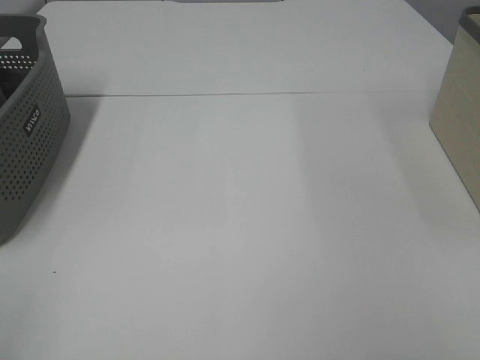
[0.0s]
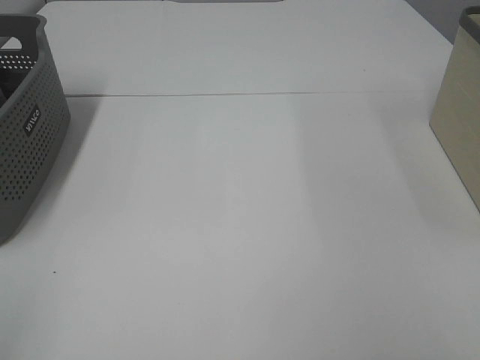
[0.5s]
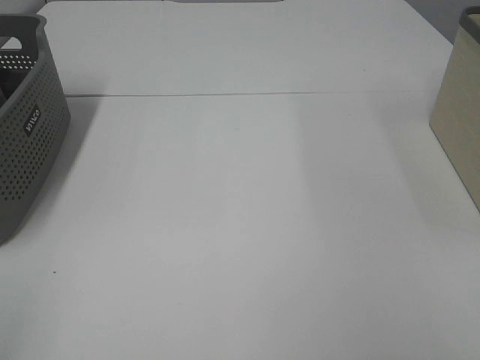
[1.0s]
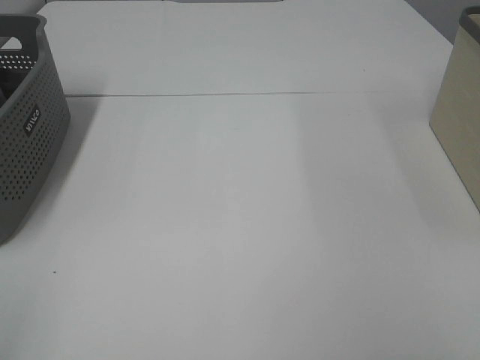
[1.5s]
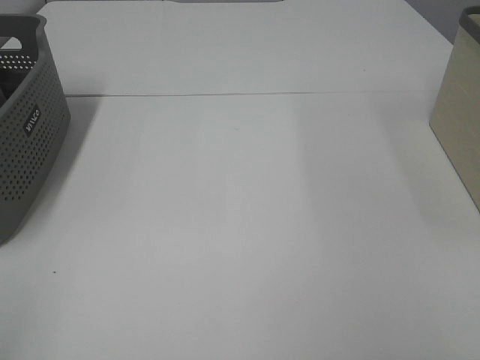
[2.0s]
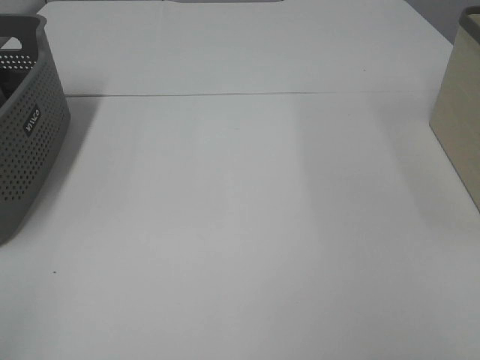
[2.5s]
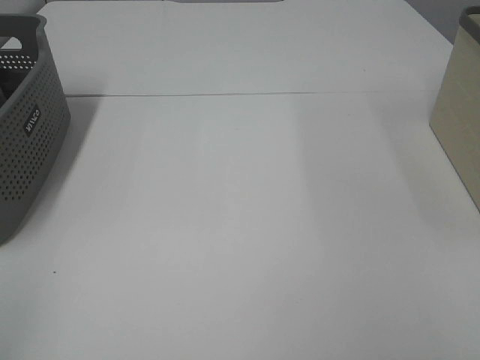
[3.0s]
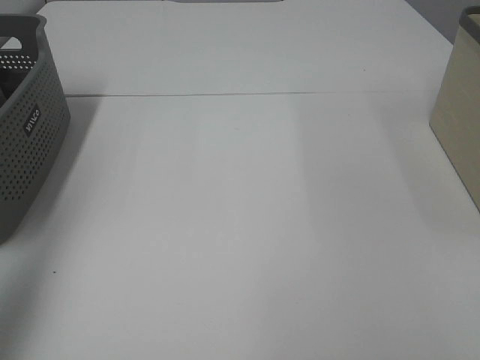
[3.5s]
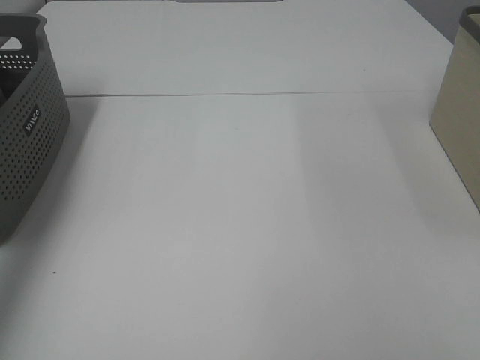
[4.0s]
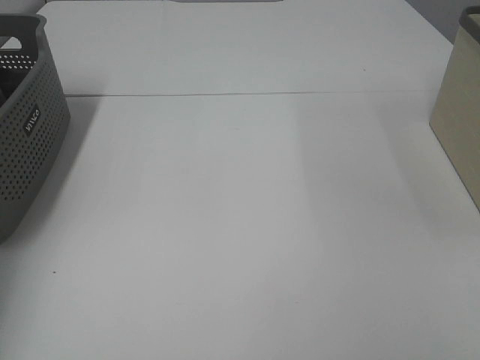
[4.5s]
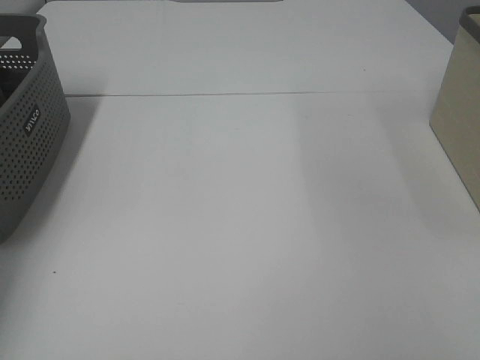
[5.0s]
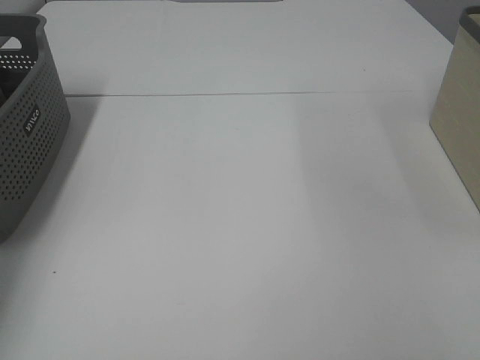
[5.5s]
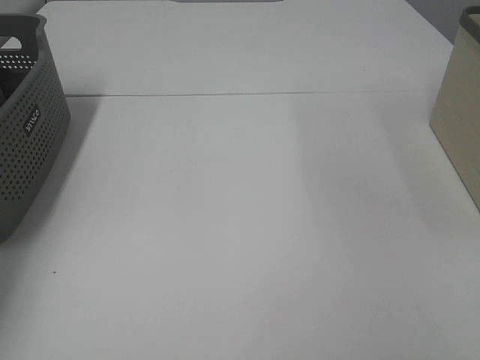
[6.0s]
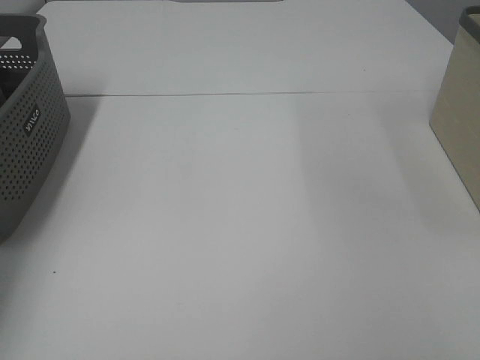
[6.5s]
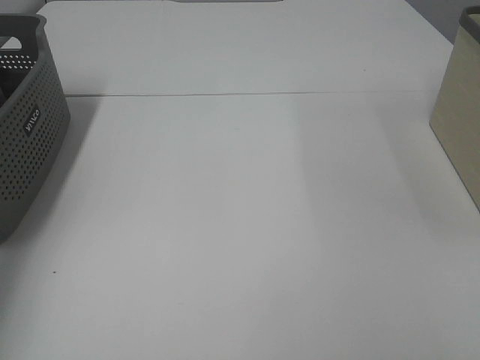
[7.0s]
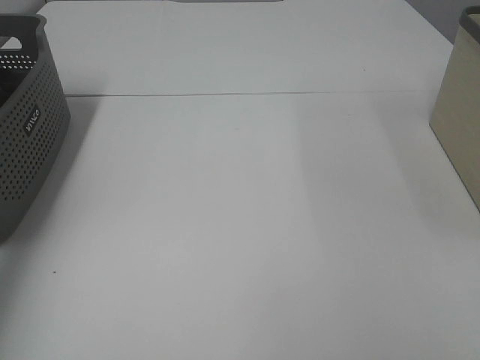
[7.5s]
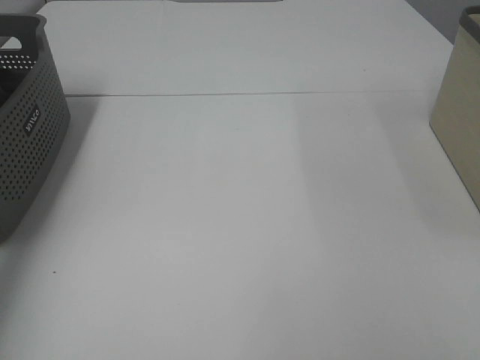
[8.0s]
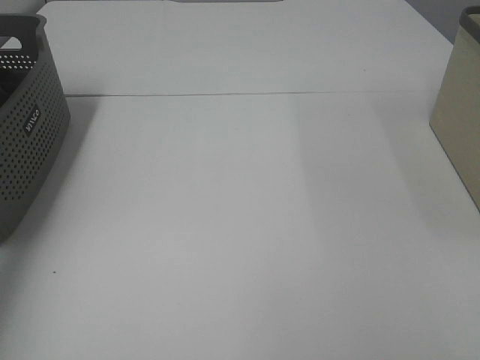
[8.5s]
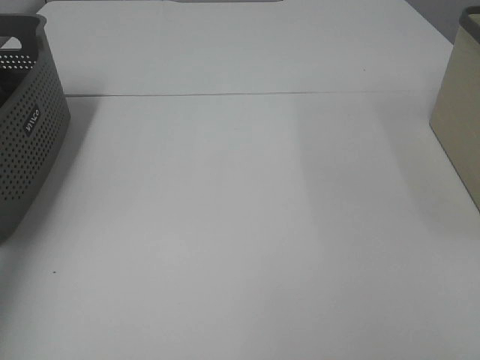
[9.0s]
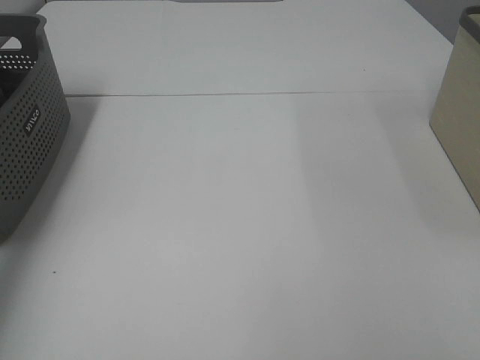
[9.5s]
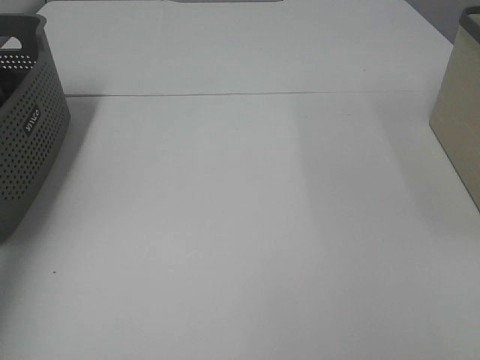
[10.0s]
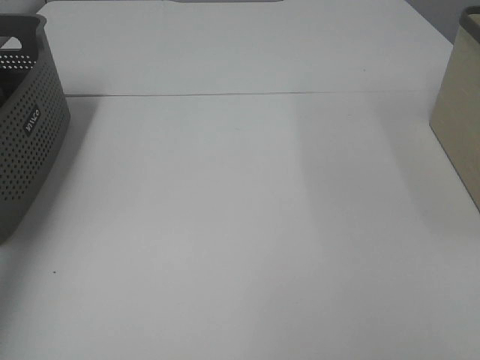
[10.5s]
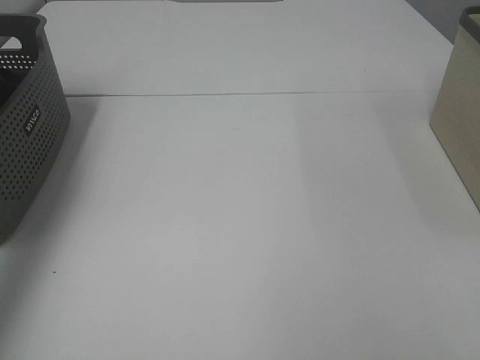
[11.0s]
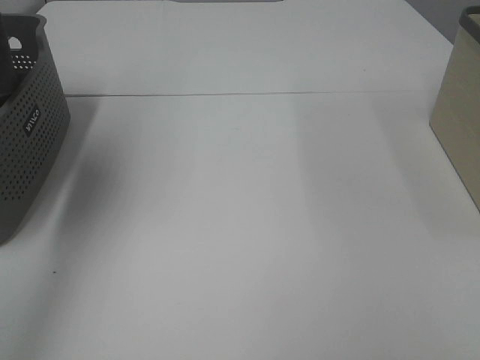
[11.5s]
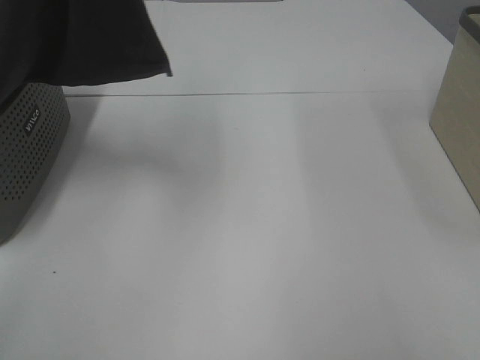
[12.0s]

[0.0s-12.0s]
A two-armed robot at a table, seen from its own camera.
Task of the whole recording: Remove the towel and place it.
0.0s to 2.0s: Both grippers stay about where they are.
2.0s to 4.0s: The left gripper is displaced forward by some 35 cm.
4.0s to 6.0s: The left gripper is displaced downward and forward by approximately 20 cm, and closes its fingers.
8.0s to 10.0s: The two grippers keep their place.
10.0s to 12.0s: The left gripper is displaced to the right and upward by roughly 30 cm.

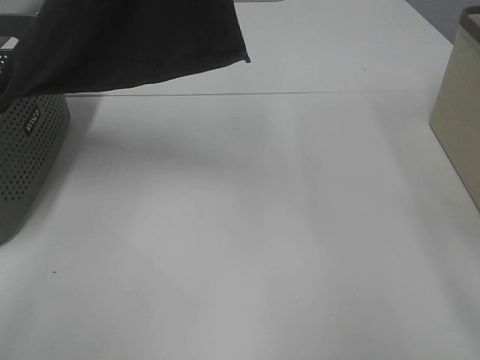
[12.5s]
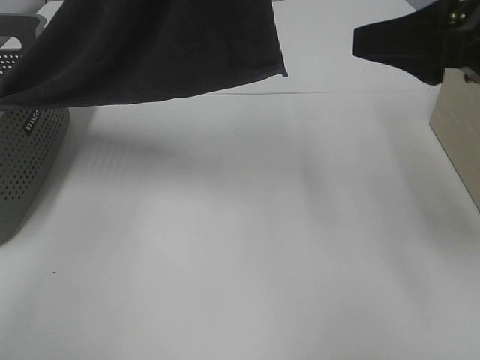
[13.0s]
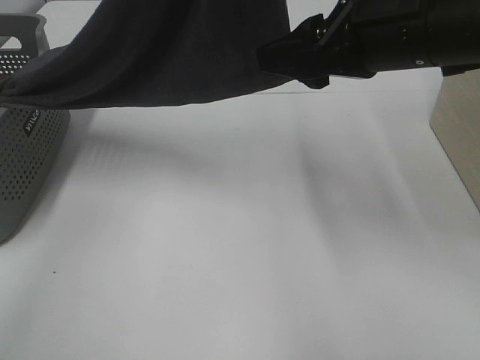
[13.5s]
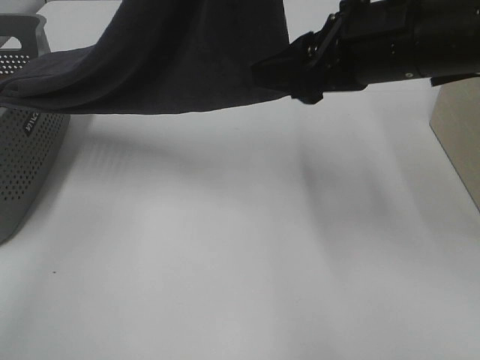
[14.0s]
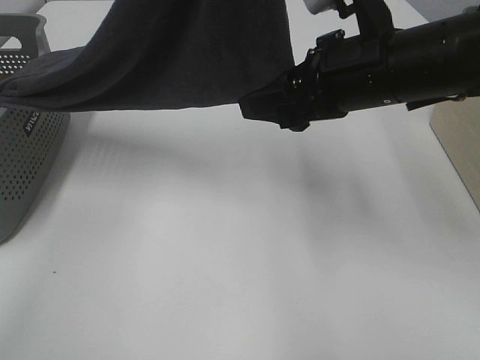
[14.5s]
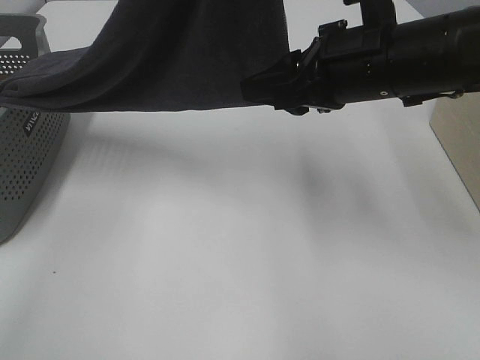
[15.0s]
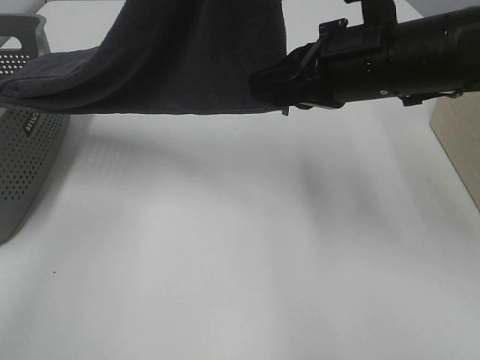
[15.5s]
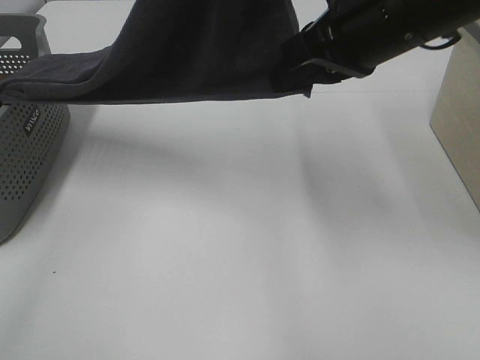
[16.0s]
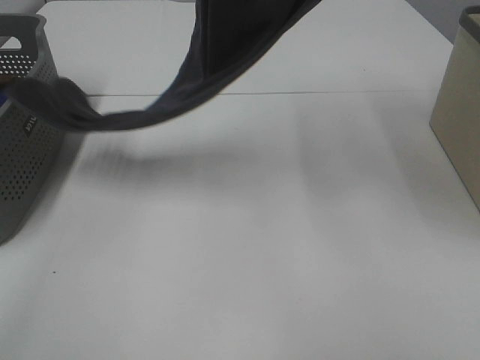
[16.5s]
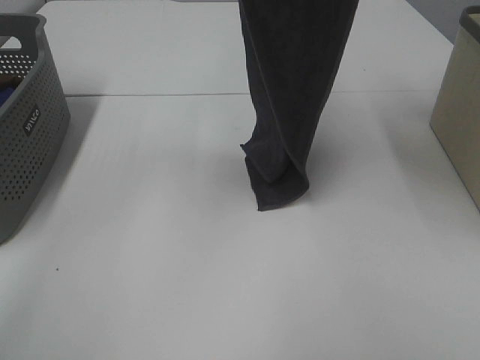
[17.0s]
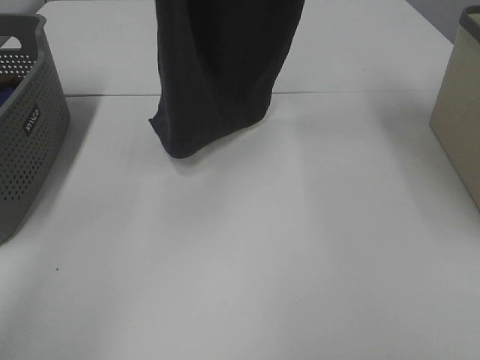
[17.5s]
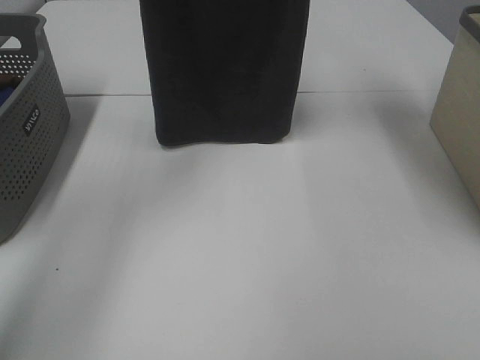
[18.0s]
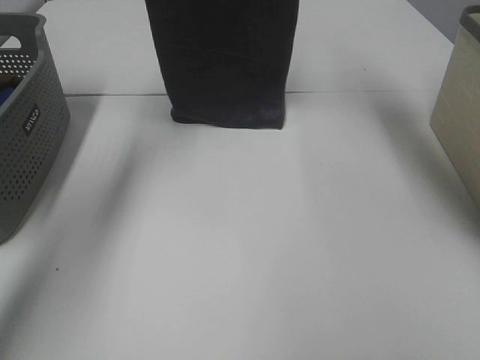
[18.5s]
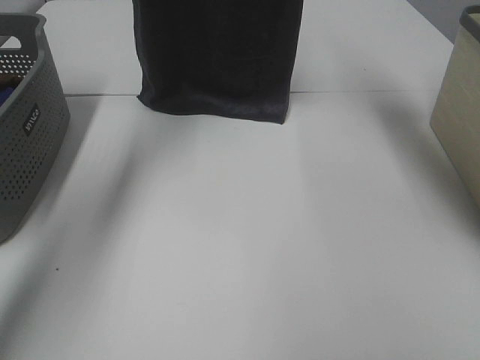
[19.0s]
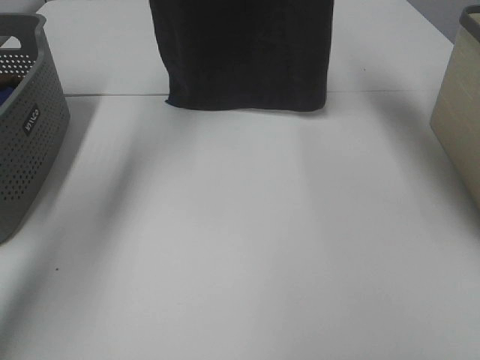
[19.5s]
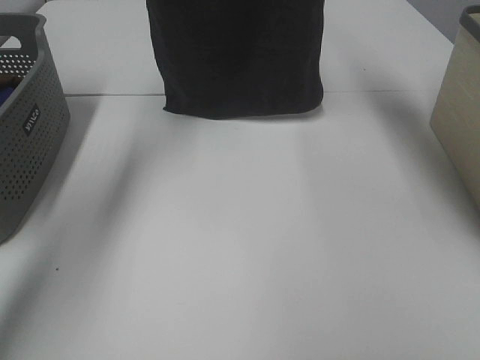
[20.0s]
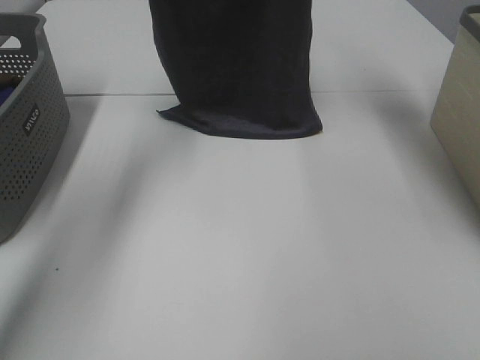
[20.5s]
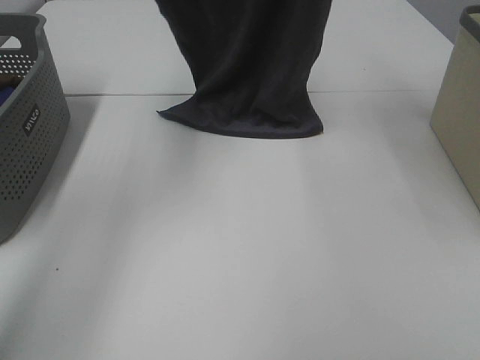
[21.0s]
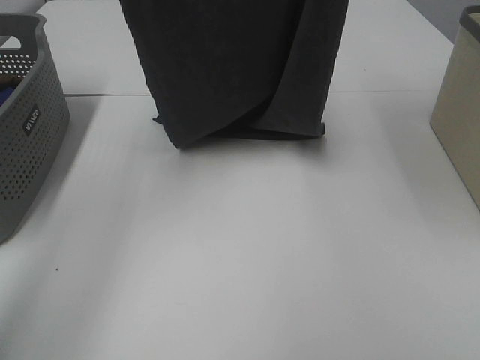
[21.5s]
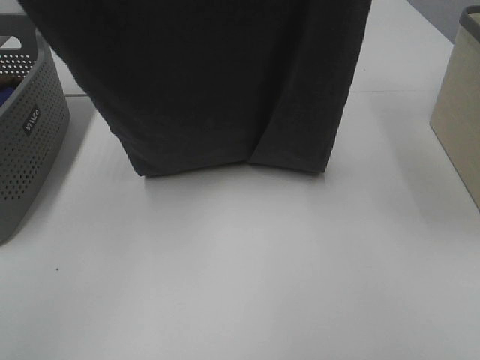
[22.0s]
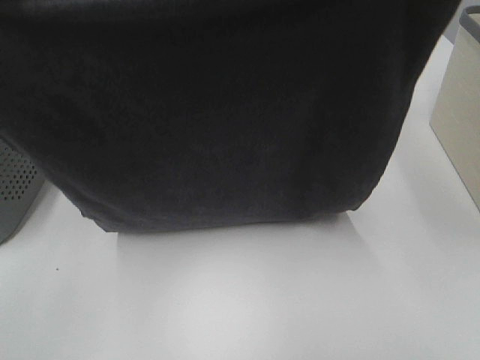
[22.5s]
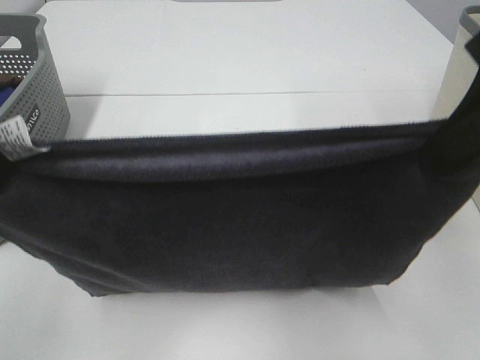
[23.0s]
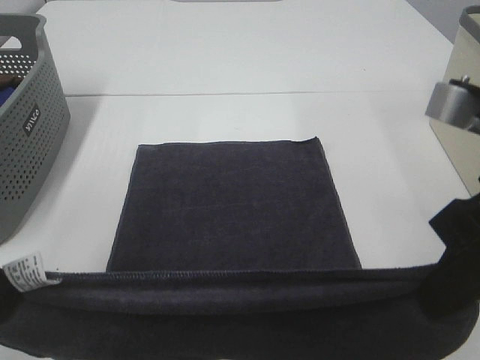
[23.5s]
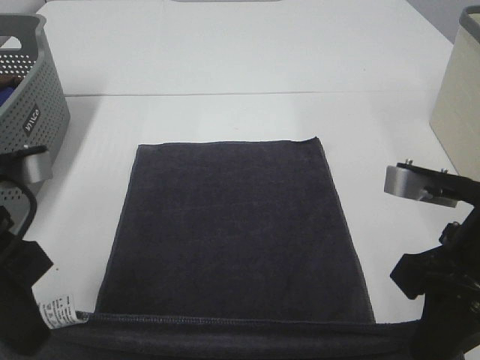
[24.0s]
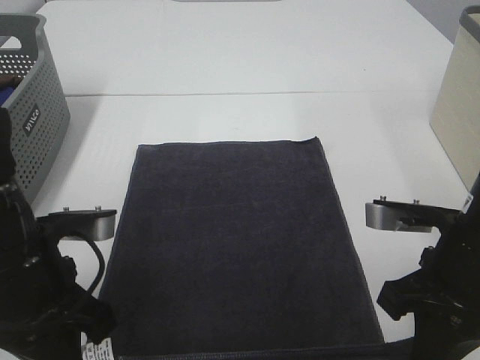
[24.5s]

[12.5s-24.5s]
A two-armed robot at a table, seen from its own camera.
Task of the whole recording: Remove the towel and place it.
Step, 12.5s to 14.5s: Right hand: grab a corner of the grey towel and straighten it.
Step, 15.0s to 20.5s: Left hand: spread the grey towel flat on the table.
Step, 15.0s to 20.5s: Right hand: spread the grey towel flat on the table.
12.5s to 14.5s: The right gripper travels forward, to the left and downward by some 20 cm.
14.5s to 16.5s: The right gripper travels upward by some 20 cm, and closes.
16.5s to 18.5s: The right gripper is displaced forward by approximately 15 cm. The left gripper heads forward and to the left, covering approximately 25 cm.
20.5s to 22.5s: Both grippers move backward, approximately 30 cm.
22.5s to 24.5s: Both grippers travel together downward, some 25 cm.

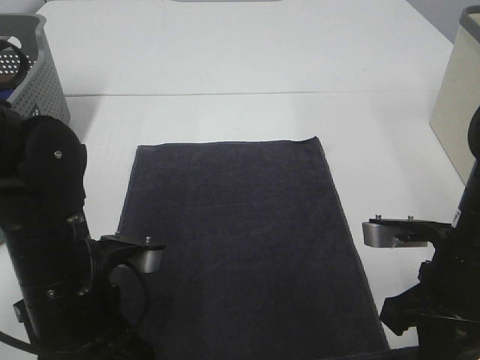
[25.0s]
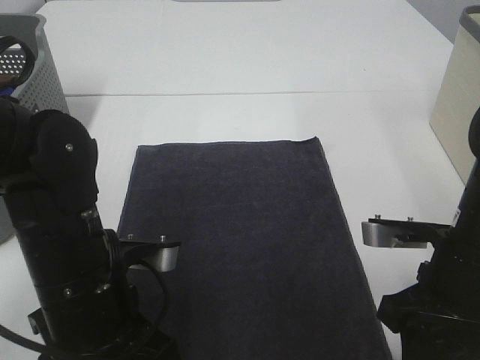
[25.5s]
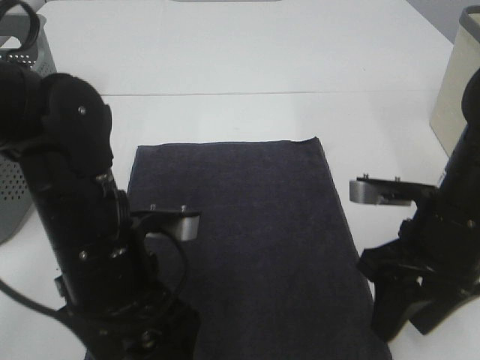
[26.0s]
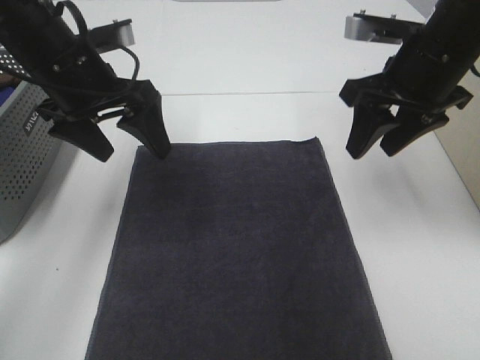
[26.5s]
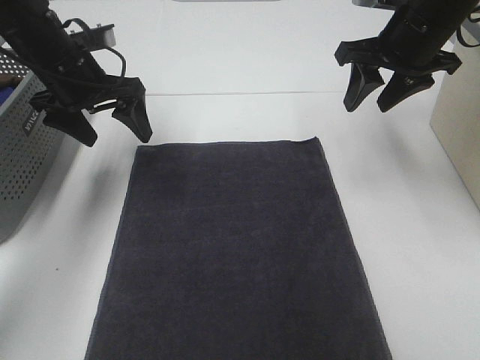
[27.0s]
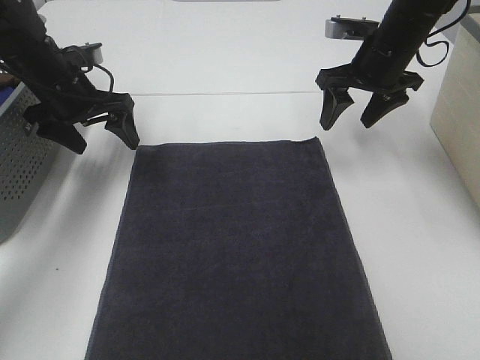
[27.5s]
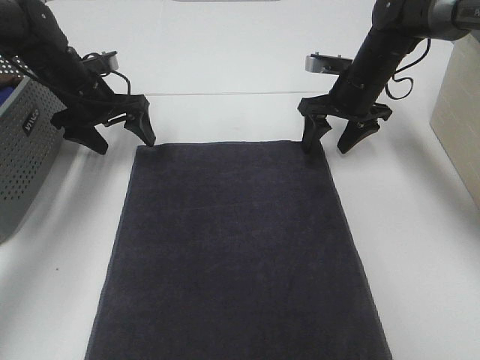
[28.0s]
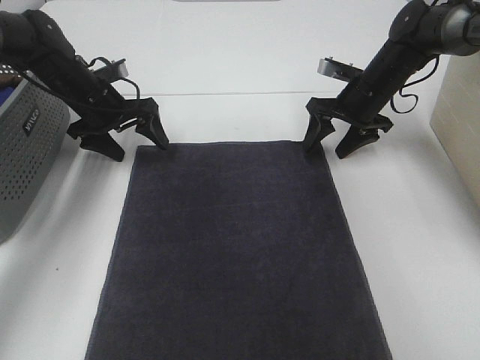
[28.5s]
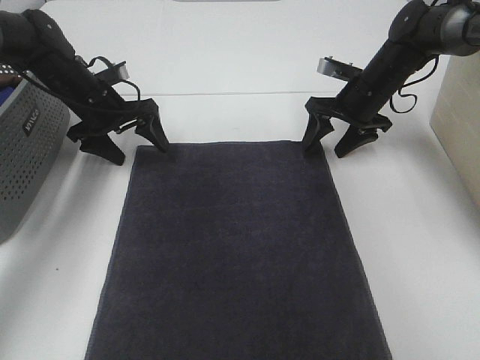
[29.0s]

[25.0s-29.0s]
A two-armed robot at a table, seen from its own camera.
Task of the whole recording: Remove the towel and place it.
Step, 25.0s to 27.0s: Left hand:adjust the gray towel.
Step, 25.0s to 27.0s: Right hand:adjust the gray towel.
25.0s to 27.0s: The right gripper is displaced forward and upward by about 25 cm, and opens, while the left gripper goes approximately 25 cm forward, and opens.
27.0s to 29.0s: The left gripper goes some 10 cm downward and forward. The right gripper shifts roughly 15 cm downward and forward.
